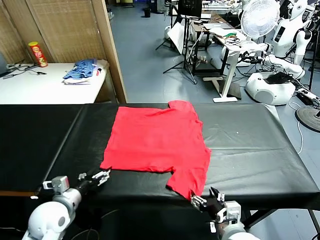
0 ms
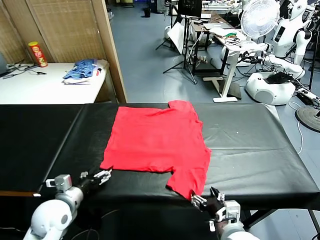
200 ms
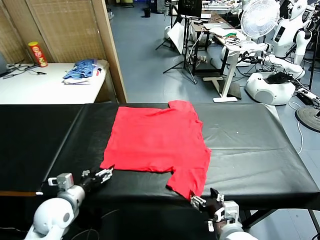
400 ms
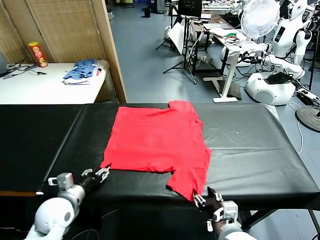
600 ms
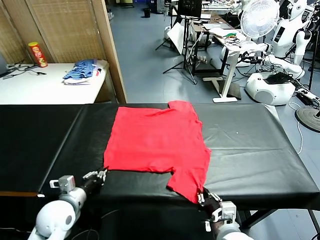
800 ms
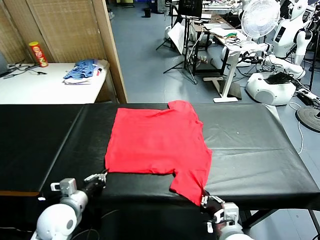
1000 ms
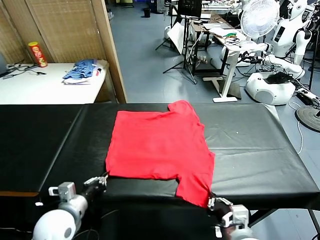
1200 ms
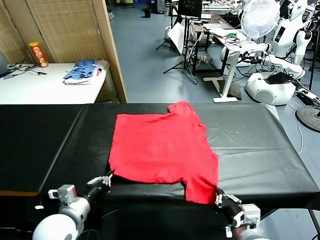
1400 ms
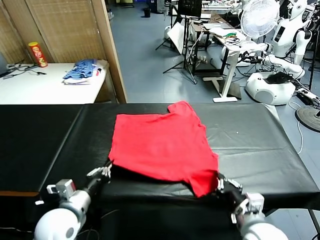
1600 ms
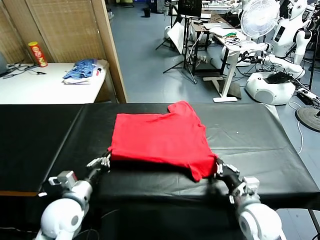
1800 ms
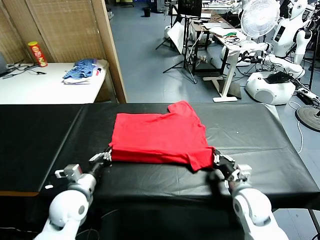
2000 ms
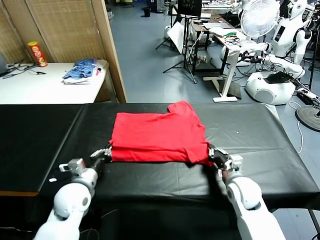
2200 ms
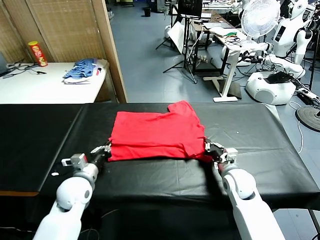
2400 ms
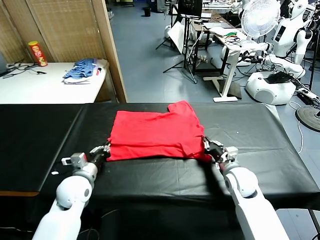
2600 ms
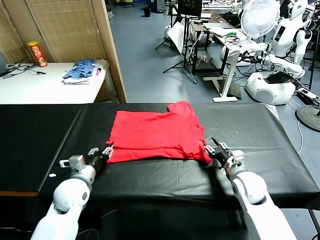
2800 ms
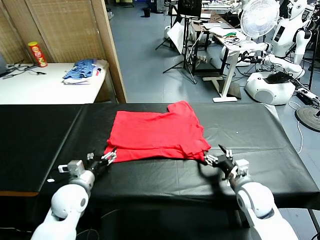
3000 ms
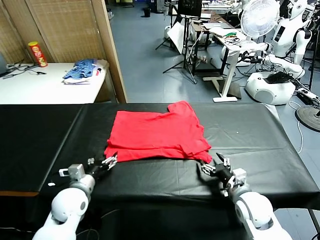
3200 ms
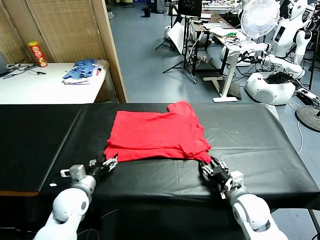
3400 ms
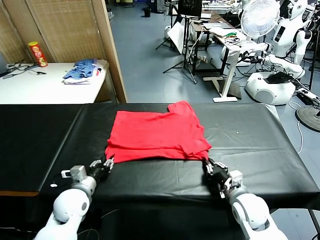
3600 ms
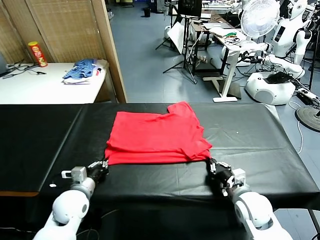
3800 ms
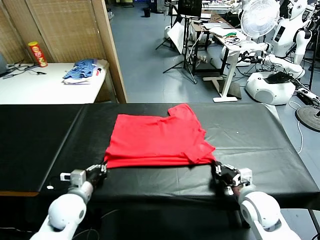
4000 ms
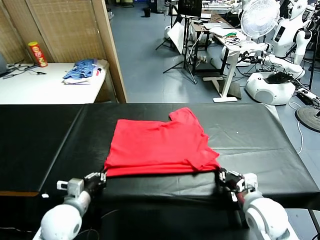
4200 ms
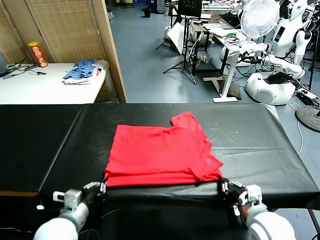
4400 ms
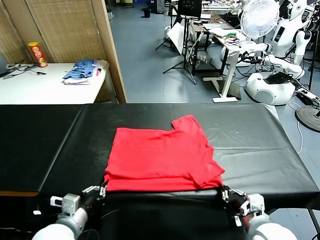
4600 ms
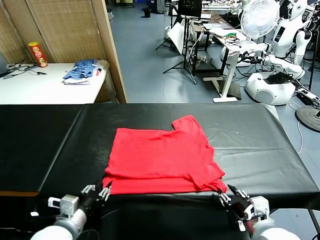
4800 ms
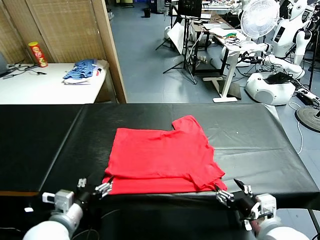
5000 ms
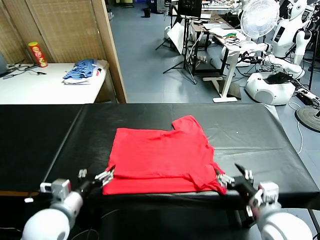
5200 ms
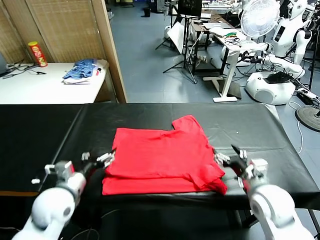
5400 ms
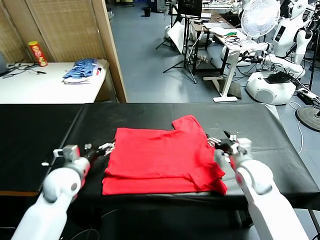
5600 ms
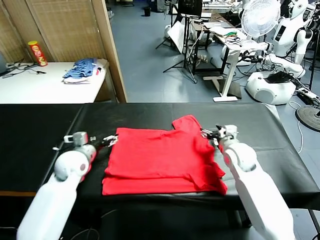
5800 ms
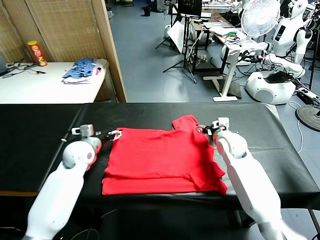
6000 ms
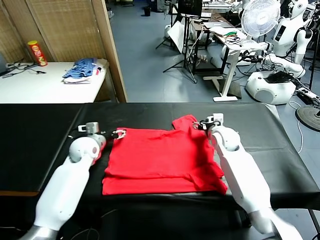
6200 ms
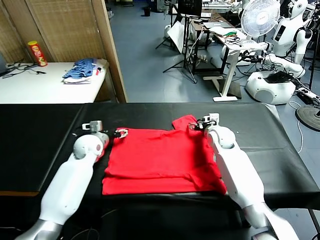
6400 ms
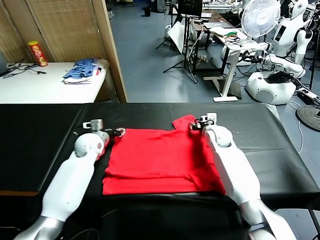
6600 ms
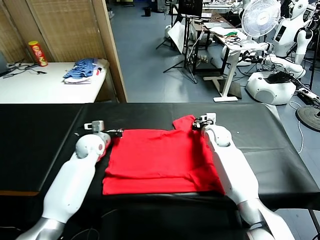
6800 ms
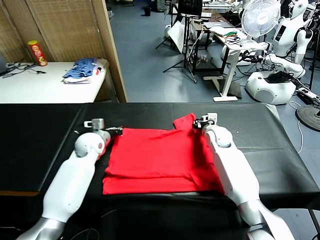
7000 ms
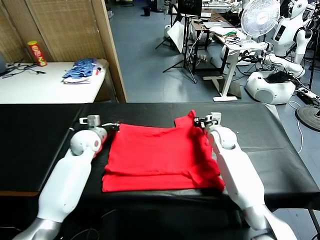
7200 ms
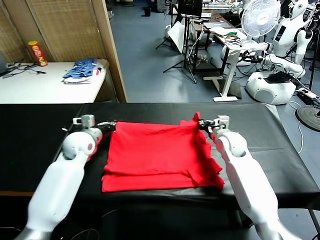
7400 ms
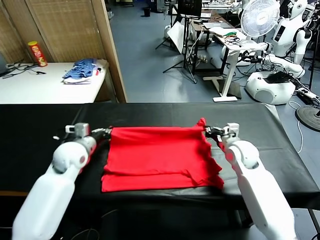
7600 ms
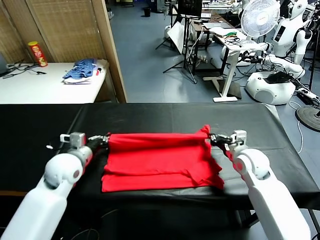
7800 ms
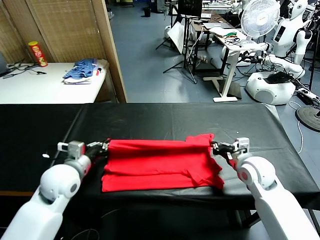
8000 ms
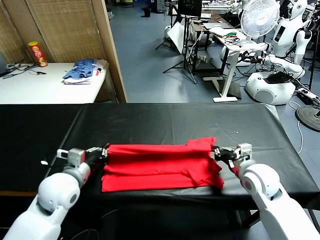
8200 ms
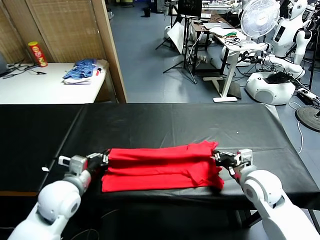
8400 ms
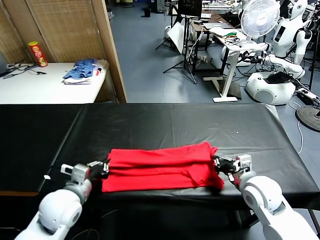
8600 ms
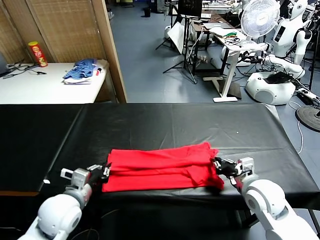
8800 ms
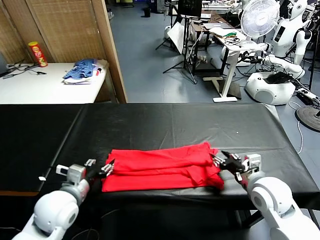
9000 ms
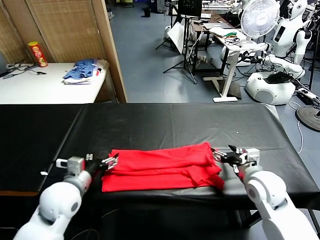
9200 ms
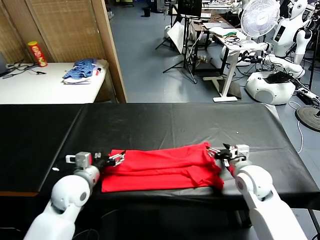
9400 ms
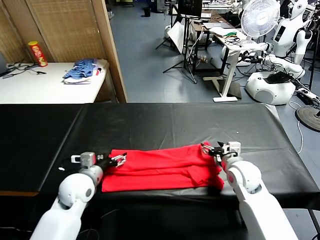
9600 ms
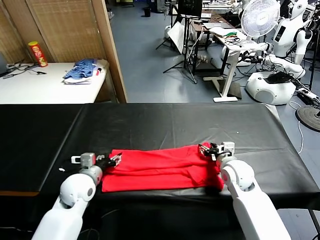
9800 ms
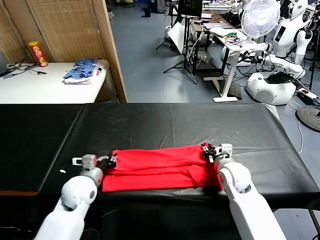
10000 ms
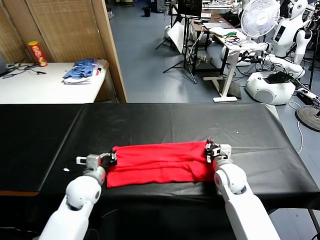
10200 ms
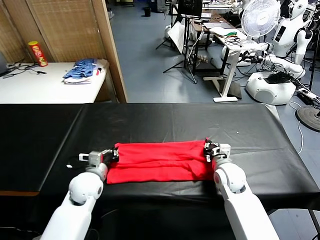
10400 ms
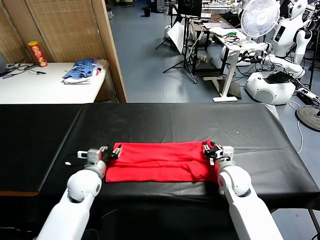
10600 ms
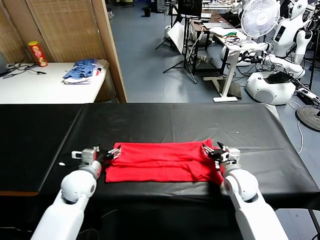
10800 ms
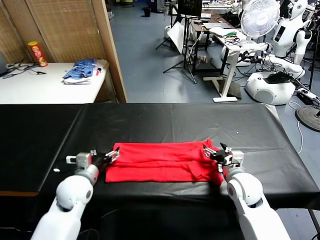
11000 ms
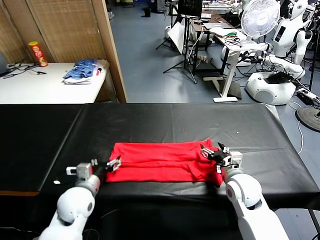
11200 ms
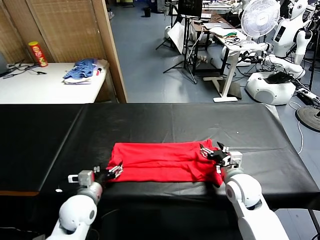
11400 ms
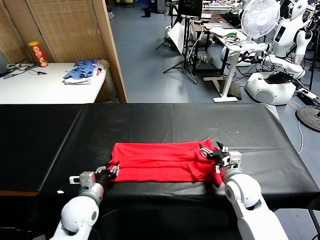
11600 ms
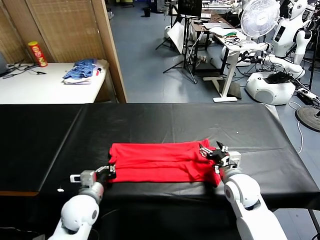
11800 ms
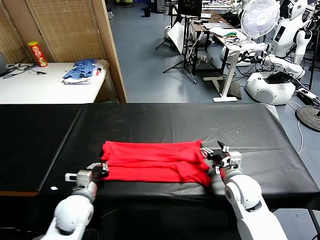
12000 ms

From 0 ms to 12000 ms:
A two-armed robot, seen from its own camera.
Task of the whole recording: fold and organize the clothes.
Step, from 0 ms to 1200 ms: use both grippers simultaneously to clamp the lower edge of the clothing fabric.
Step, from 1400 ms to 2800 ms: use both grippers to drag the lower edge of the fabric forward and fold it over the upper edge.
Step, from 3000 ms to 4800 ms: Drag the clothes downward with both gripper.
Step, from 5000 ms to 7200 ms: use both grippers simultaneously to clamp the upper edge of the clothing fabric.
Step, from 7400 ms to 9000 ms: use both grippers to drag the upper edge of the fabric backward and fold it over the lower edge.
From 1600 ms to 3000 ms: The right gripper goes forward and returns, about 10 cm each way, and opens its fingers, while the left gripper moves forward, approximately 5 cm, and opens its fingers.
From 3000 ms to 4400 ms: The left gripper travels backward by roughly 10 cm, and closes, while the right gripper heads backward and upward, covering about 10 cm, and closes up.
From 4400 ms to 6000 ms: The two grippers go approximately 30 cm forward. The left gripper opens, while the right gripper opens.
From 6000 ms to 7600 ms: The right gripper goes roughly 10 cm backward and to the right, and closes. The left gripper heads backward, covering about 5 cm, and closes.
From 7600 ms to 9000 ms: The grippers both shift backward by roughly 10 cm. The right gripper opens up, while the left gripper opens up.
From 9000 ms to 10400 ms: The left gripper moves forward and downward, approximately 10 cm, and closes its fingers, while the right gripper moves downward, forward and to the left, about 15 cm, and closes up.
From 10400 ms to 12000 ms: The grippers both shift backward by some 5 cm. The left gripper opens and closes again; the right gripper opens up.

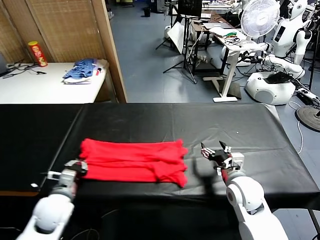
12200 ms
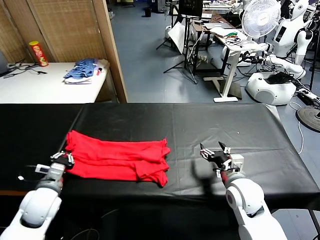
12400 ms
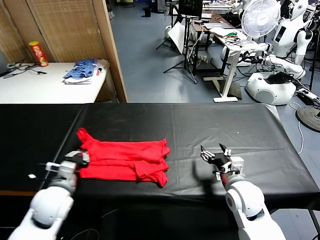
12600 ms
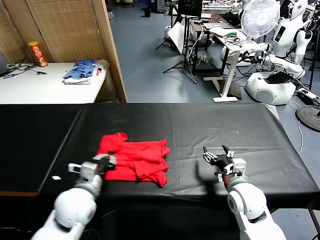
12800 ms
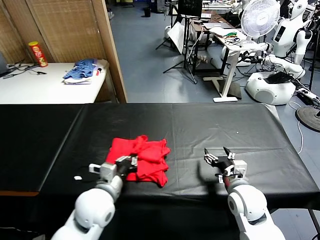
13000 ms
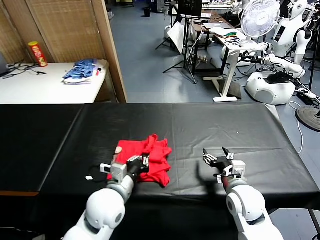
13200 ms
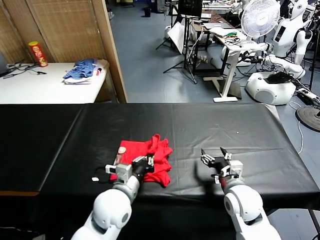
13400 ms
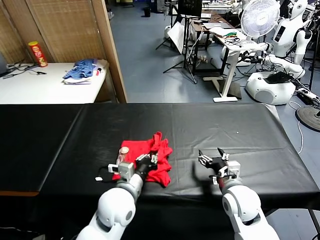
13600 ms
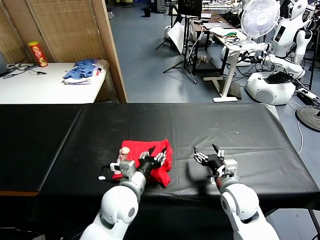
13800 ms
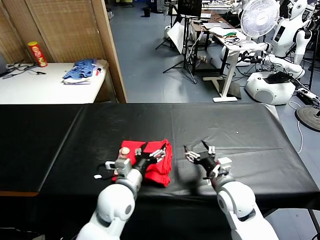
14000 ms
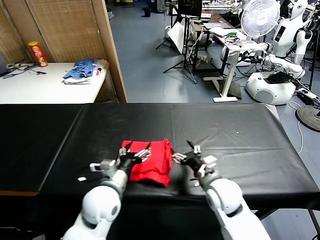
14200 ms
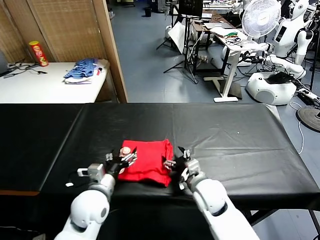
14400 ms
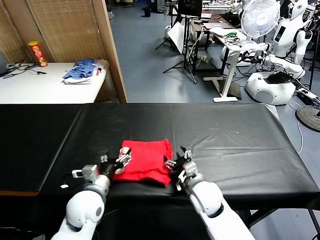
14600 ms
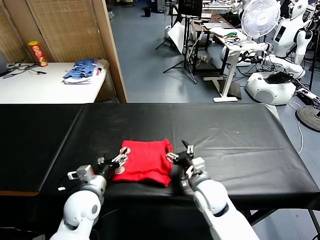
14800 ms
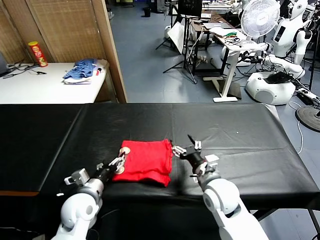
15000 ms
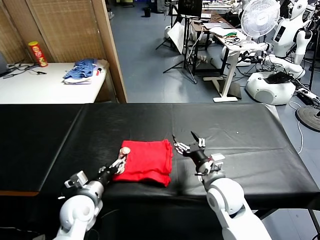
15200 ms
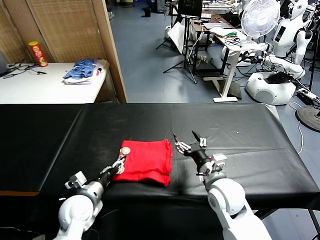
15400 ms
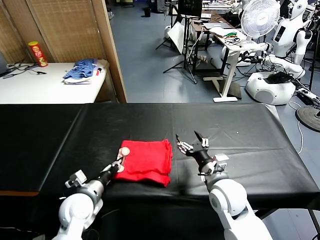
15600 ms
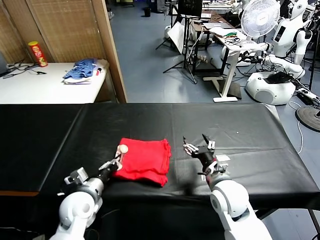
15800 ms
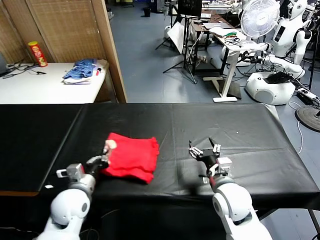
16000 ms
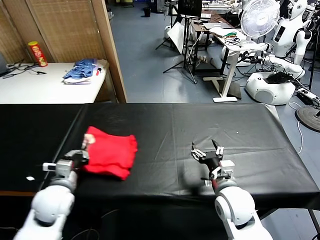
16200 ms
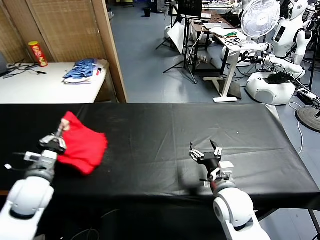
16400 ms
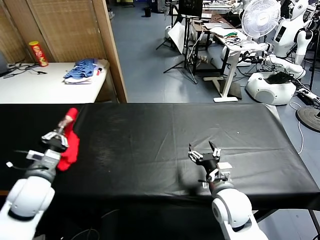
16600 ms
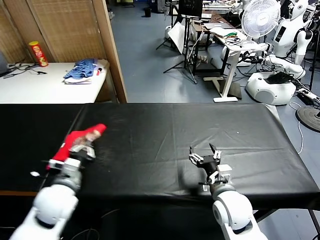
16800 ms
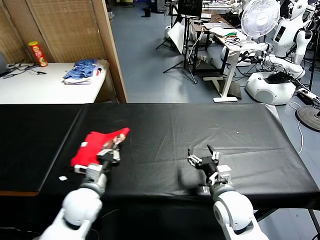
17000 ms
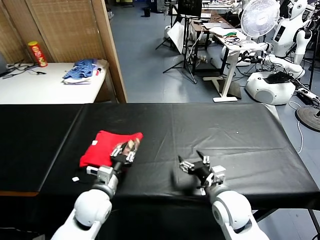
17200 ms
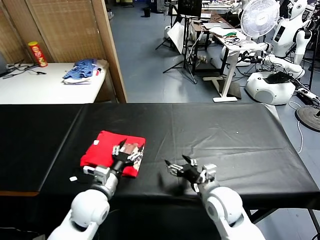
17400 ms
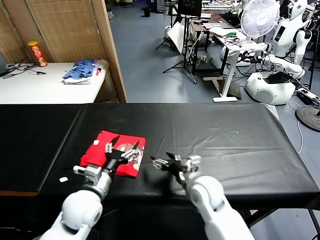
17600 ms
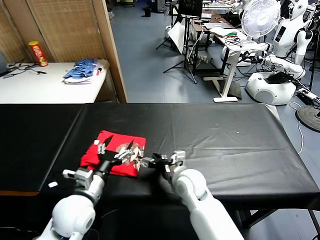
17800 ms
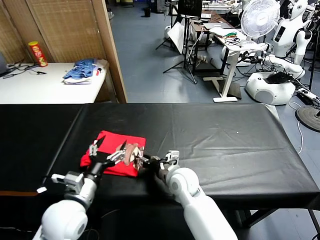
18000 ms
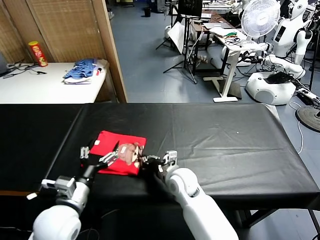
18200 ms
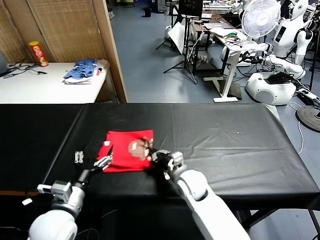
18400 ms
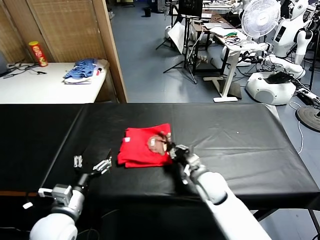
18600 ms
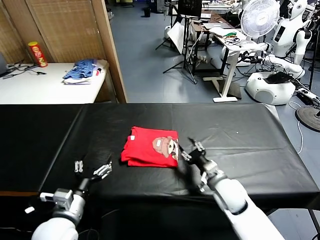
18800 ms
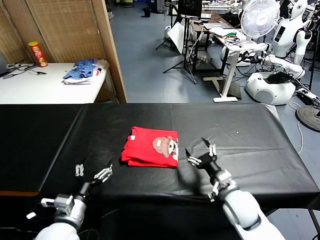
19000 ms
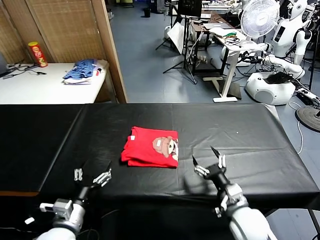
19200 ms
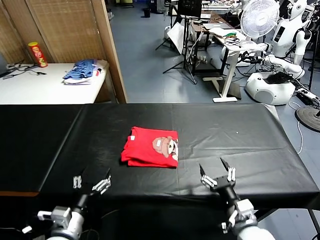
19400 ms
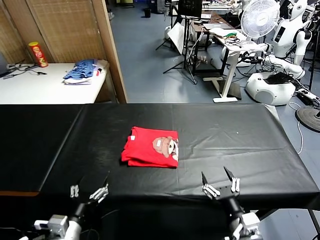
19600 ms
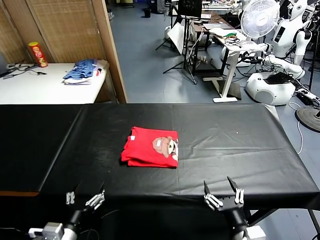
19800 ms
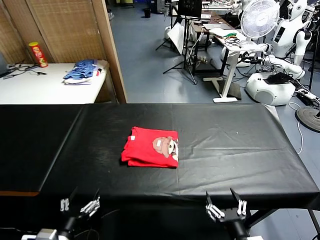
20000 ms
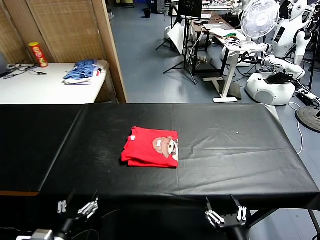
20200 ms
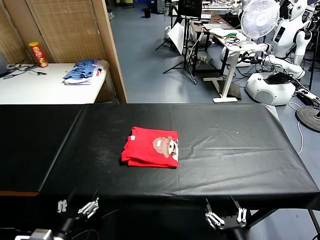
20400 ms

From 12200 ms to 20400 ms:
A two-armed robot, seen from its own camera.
Task of the whole recording: fold and organize the clothes.
Step, from 12200 ms to 13800 ms: use the left gripper to drag the left edge of the fabric to the left and folds it over the right edge.
Step, from 14000 ms to 17200 ms: Flip the folded clothes over with left gripper.
Step, from 17400 ms to 19000 ms: Drag the clothes to the center of the table.
From 12200 ms to 13800 ms: The left gripper shifts about 20 cm to the right, and opens its fingers.
From 13800 ms to 15400 ms: The left gripper travels to the left and downward by roughly 15 cm.
From 15400 ms to 17200 ms: The left gripper moves to the right, about 5 cm.
From 17200 ms to 18800 ms: The right gripper travels forward by roughly 5 cm, travels to the left and back again, roughly 10 cm each way, and closes its fingers. The left gripper travels backward and to the left by some 10 cm, and opens.
From 18800 ms to 20400 ms: The left gripper heads backward, covering approximately 10 cm, while the right gripper goes approximately 25 cm backward, and opens.

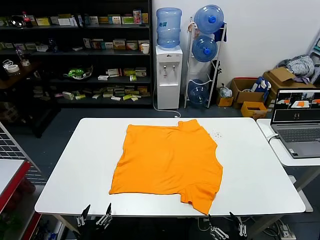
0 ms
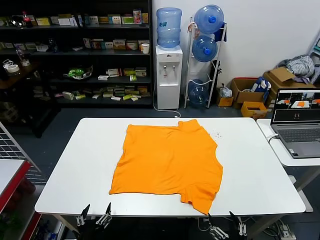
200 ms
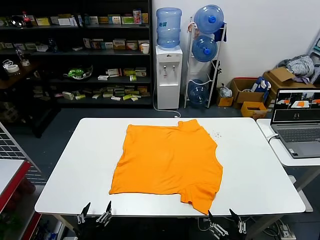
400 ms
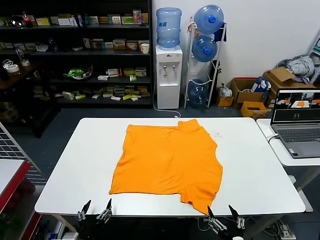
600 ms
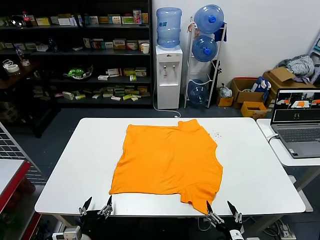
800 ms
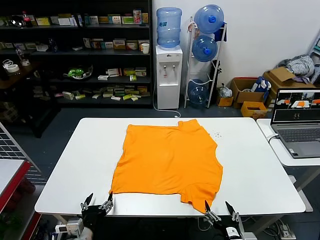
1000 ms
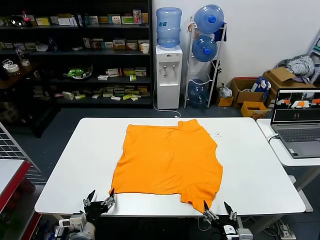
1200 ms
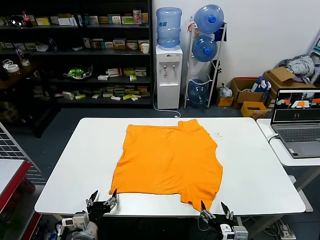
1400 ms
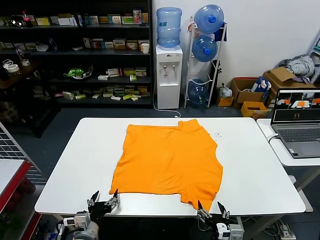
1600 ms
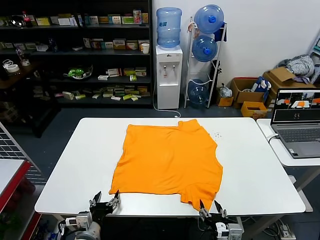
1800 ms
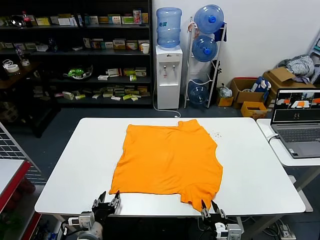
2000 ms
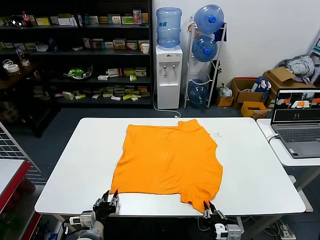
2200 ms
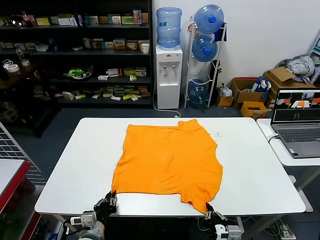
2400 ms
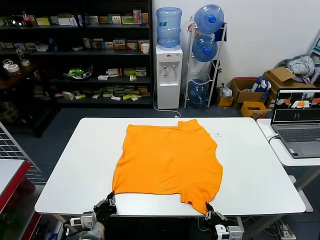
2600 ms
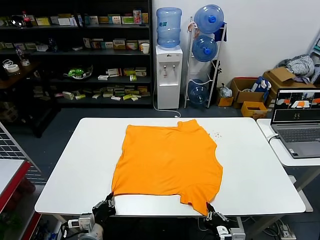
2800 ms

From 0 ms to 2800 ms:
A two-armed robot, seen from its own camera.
Task of the whole recording: fold and organize the clothes.
Step, from 0 ms to 2600 ms: use both grippers simultaneously to clamp the lower edge of the clothing fabric.
From 1400 ms to 2800 ms: The left gripper closes up. Meanwhile the right gripper closes its fingers.
